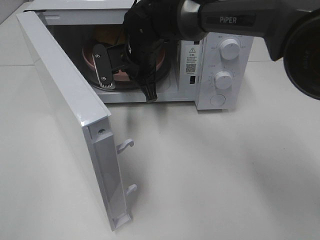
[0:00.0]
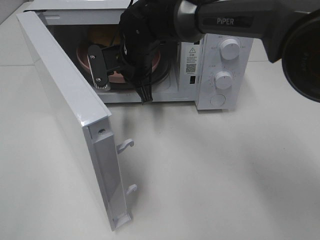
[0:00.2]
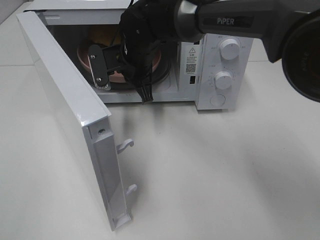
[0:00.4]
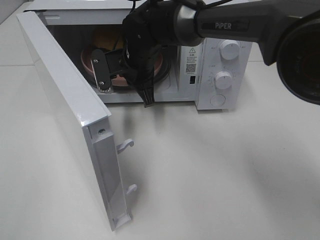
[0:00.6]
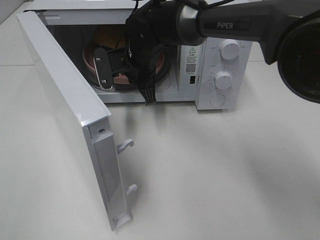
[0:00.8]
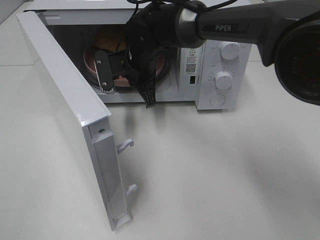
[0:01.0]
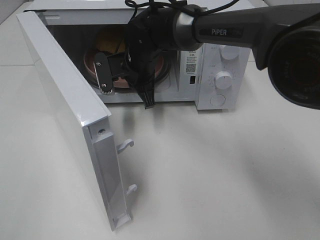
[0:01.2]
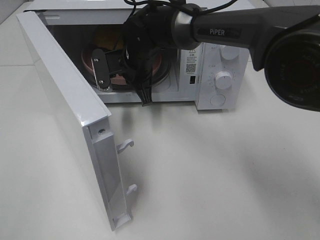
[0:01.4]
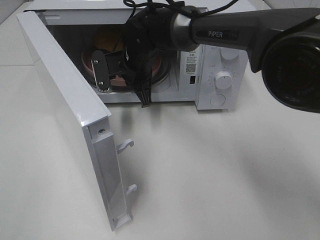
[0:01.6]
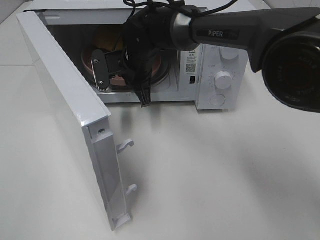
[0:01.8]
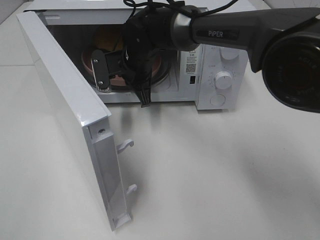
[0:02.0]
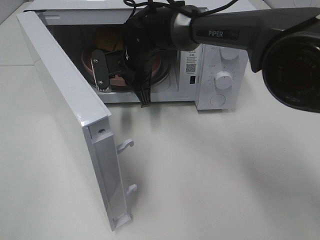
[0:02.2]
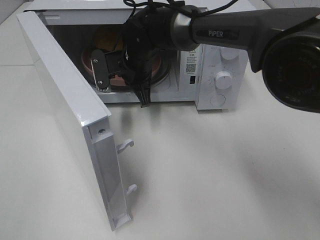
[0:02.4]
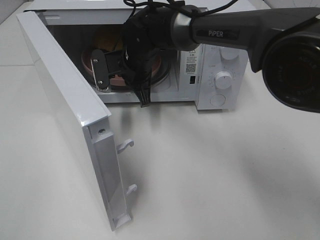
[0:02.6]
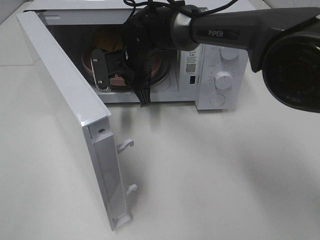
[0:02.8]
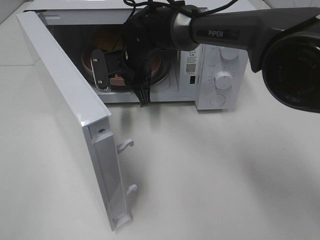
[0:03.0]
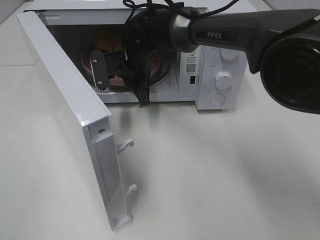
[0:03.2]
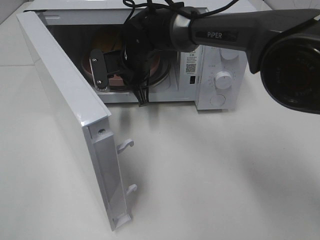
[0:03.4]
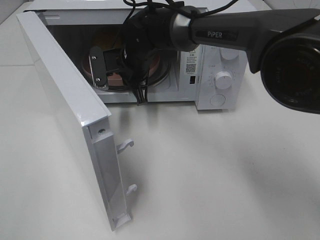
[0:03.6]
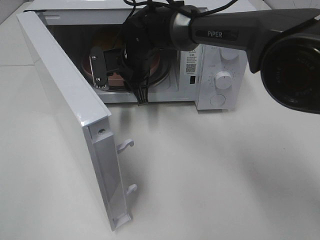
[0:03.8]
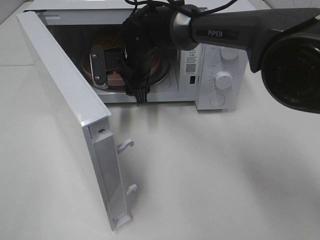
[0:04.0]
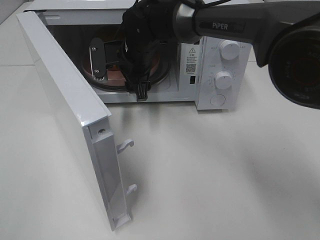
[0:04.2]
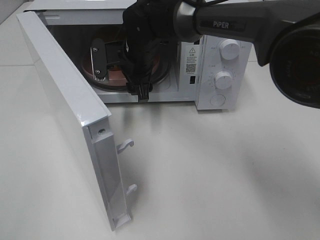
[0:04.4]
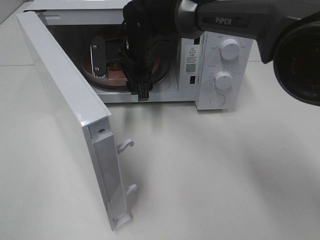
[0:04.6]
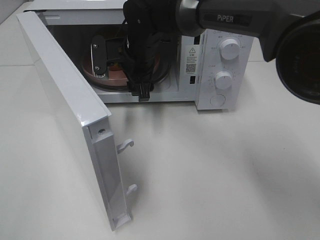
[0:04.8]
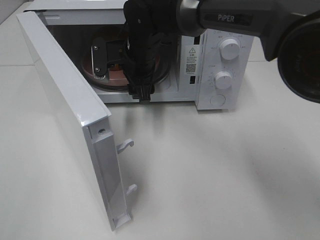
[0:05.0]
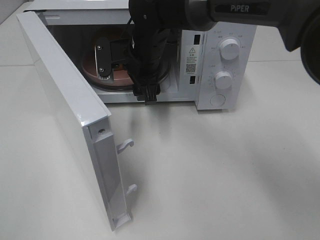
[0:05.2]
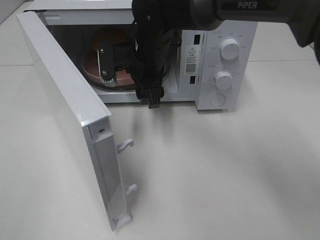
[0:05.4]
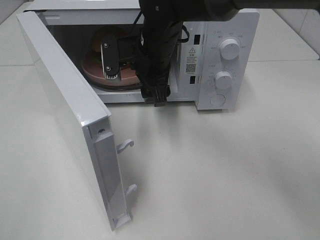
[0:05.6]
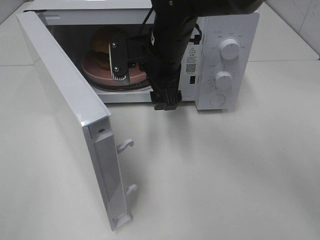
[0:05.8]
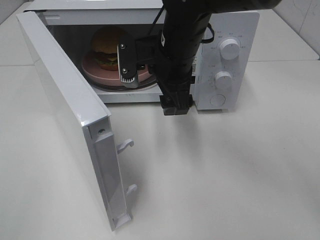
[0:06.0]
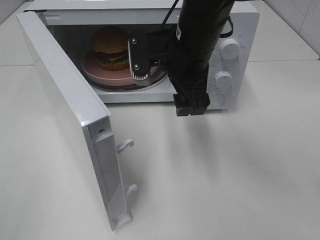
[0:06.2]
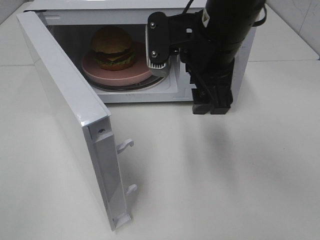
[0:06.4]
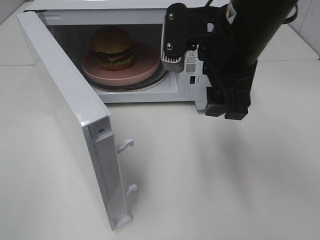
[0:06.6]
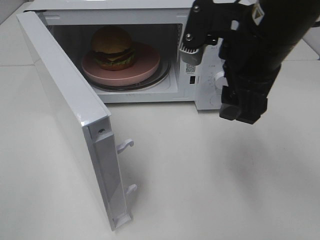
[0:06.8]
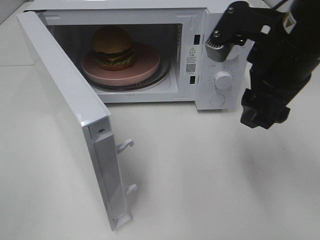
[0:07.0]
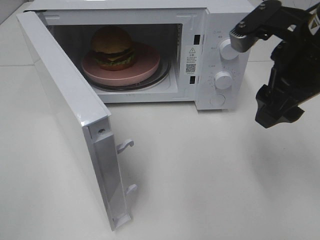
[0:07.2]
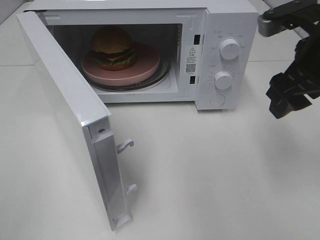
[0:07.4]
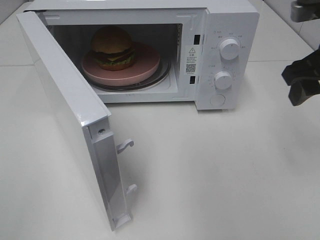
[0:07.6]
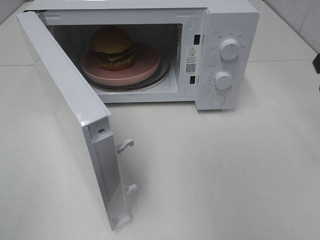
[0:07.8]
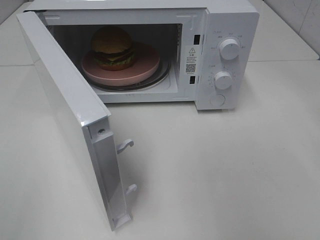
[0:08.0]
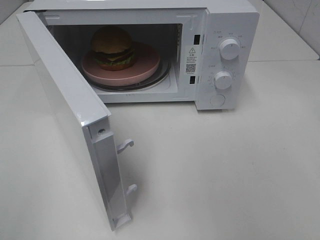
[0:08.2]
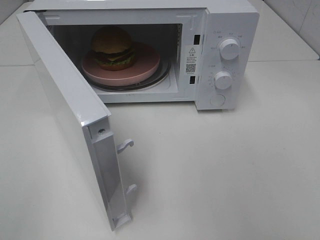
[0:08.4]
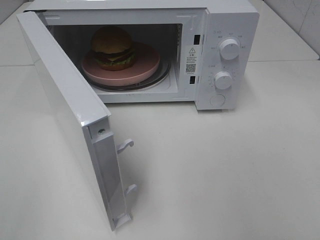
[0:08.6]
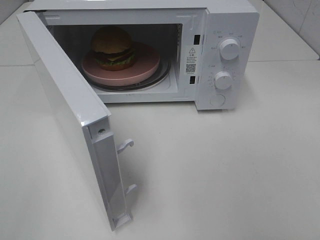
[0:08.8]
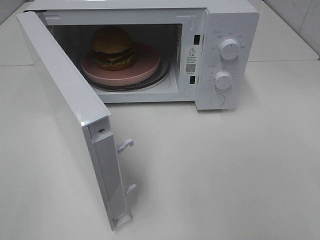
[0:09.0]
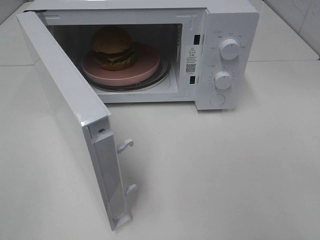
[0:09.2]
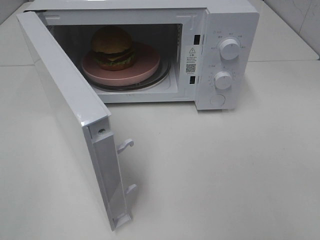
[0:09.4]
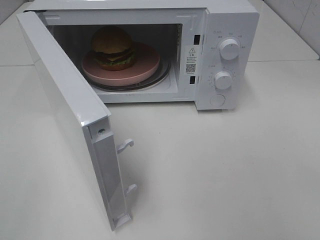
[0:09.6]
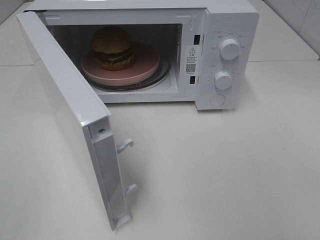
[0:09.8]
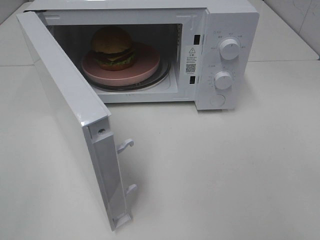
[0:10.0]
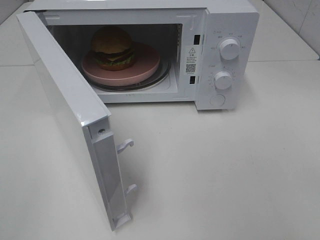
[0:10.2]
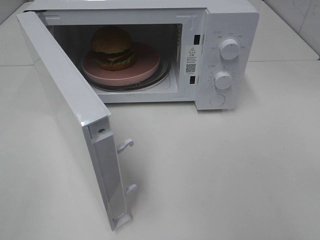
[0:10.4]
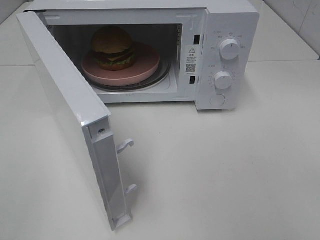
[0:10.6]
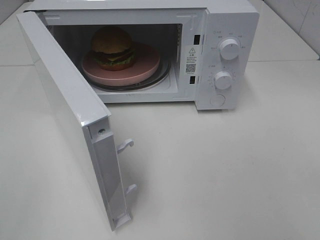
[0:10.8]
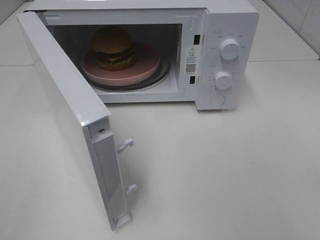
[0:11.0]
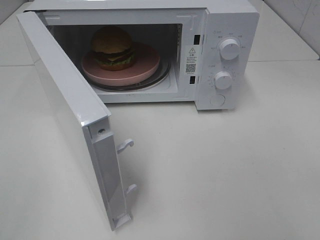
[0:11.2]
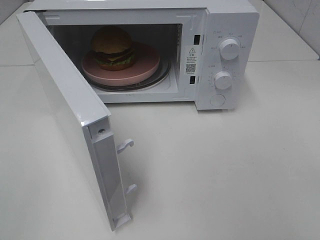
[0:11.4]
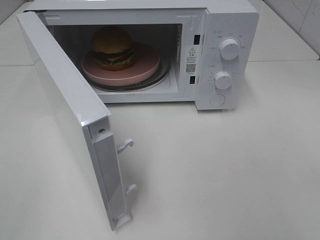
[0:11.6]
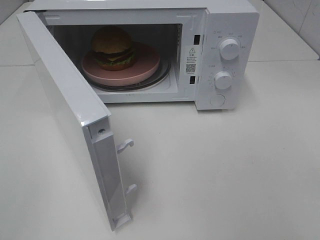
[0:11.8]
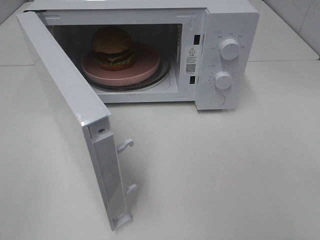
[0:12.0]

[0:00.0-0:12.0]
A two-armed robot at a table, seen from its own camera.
Task of the whole recording: Heat the burger.
Step, 0:00.0 to 0:03.8: Right hand: place the plate in the microwave.
0:00.0 to 0:01.6: The grippers move only a little.
0:01.6 to 0:03.0: The two grippers keep their place.
0:03.0 to 0:04.4: The right gripper opens its fingers.
0:04.4 to 0:06.0: The right gripper travels backward, to the right and upward by approximately 10 cm.
0:06.0 to 0:07.6: The right gripper travels to the right by some 20 cm.
0:07.6 to 0:09.0: The right gripper travels backward by roughly 20 cm.
0:10.4 to 0:12.0: Both grippers stay about where they are.

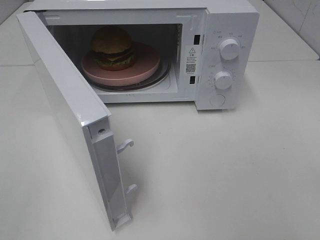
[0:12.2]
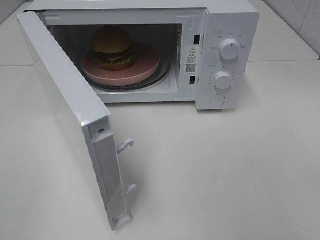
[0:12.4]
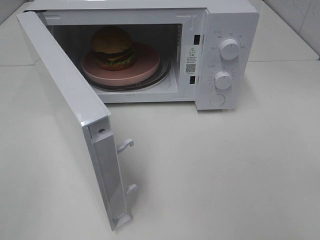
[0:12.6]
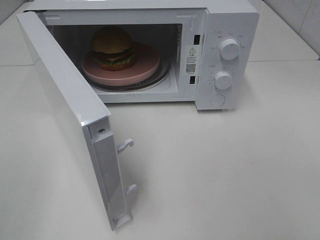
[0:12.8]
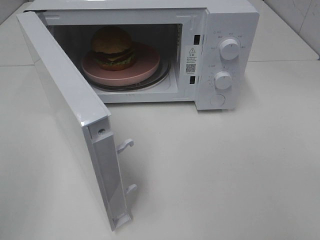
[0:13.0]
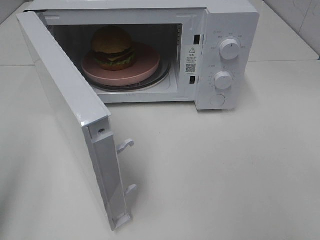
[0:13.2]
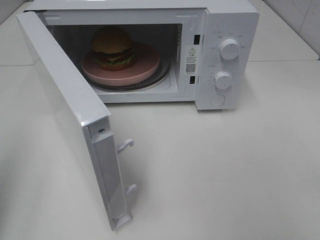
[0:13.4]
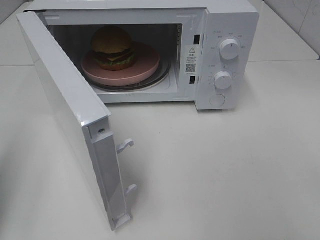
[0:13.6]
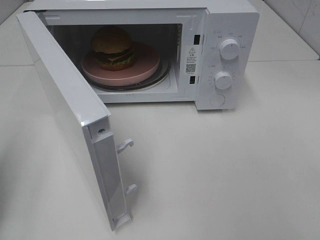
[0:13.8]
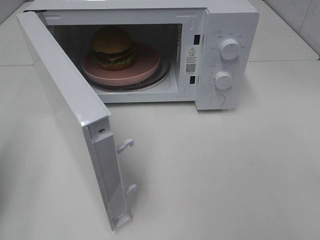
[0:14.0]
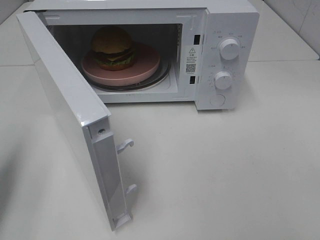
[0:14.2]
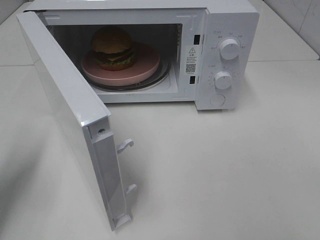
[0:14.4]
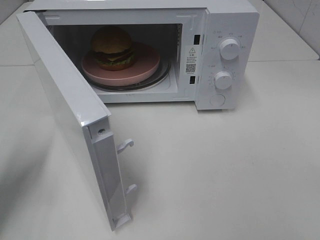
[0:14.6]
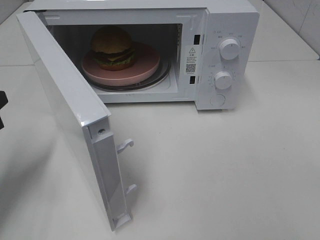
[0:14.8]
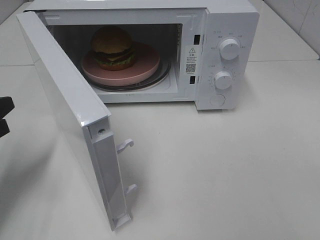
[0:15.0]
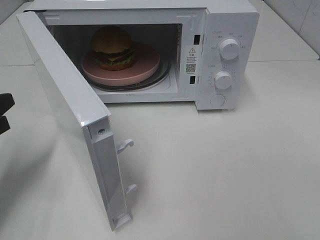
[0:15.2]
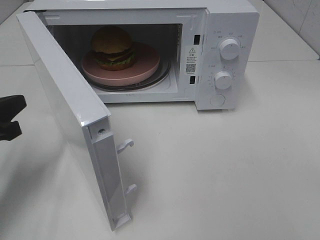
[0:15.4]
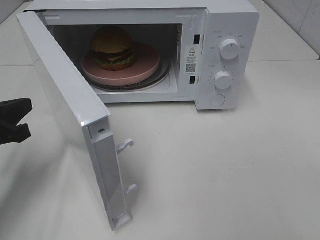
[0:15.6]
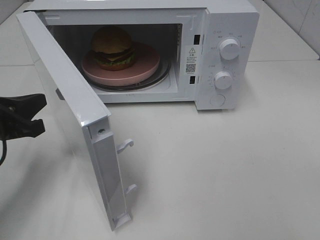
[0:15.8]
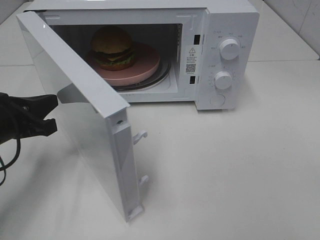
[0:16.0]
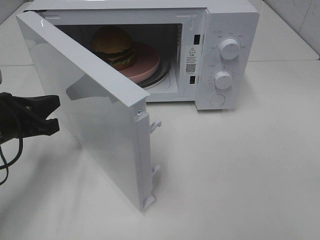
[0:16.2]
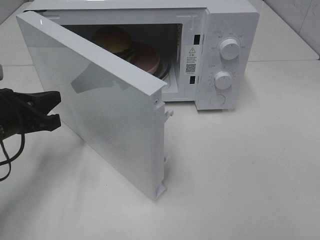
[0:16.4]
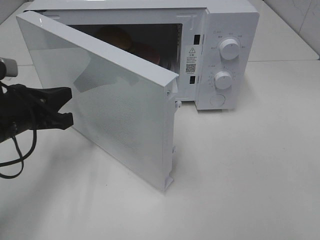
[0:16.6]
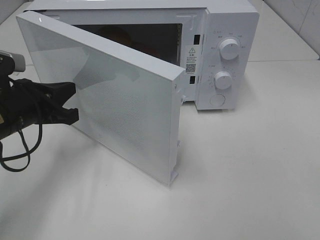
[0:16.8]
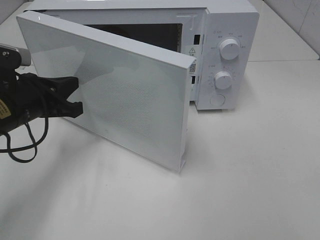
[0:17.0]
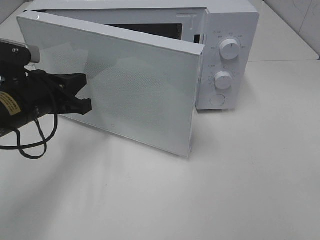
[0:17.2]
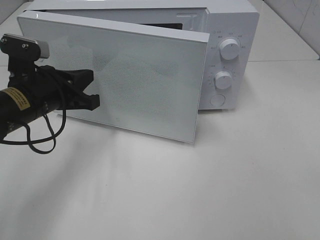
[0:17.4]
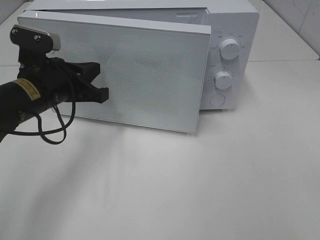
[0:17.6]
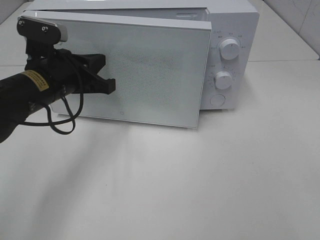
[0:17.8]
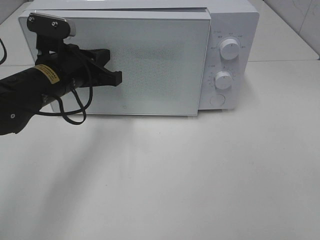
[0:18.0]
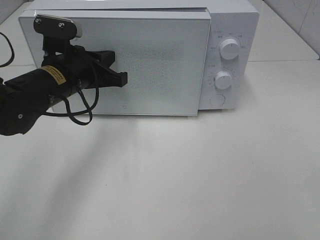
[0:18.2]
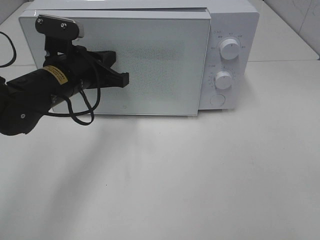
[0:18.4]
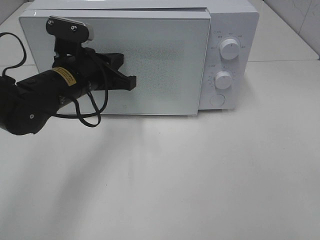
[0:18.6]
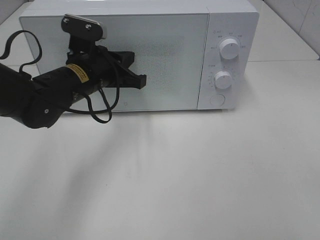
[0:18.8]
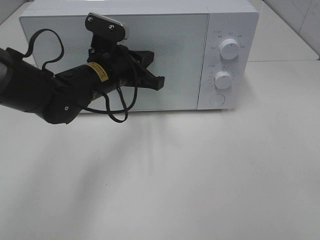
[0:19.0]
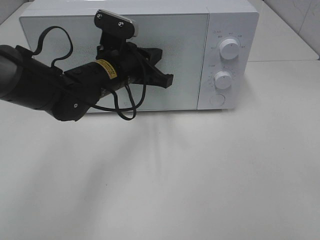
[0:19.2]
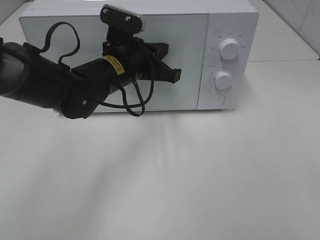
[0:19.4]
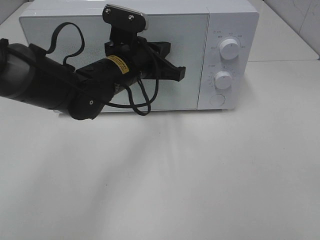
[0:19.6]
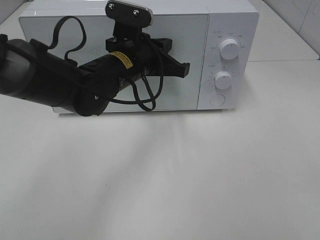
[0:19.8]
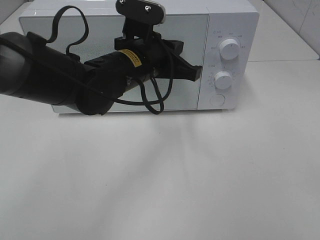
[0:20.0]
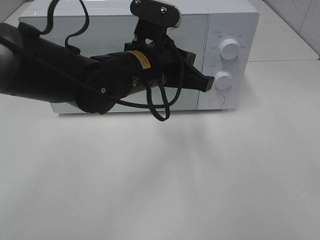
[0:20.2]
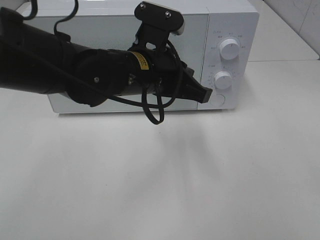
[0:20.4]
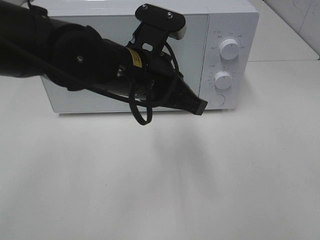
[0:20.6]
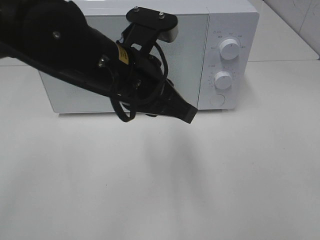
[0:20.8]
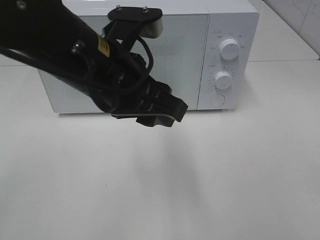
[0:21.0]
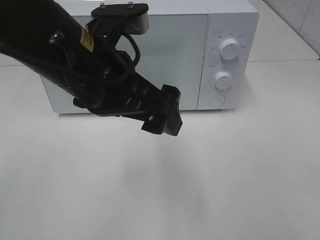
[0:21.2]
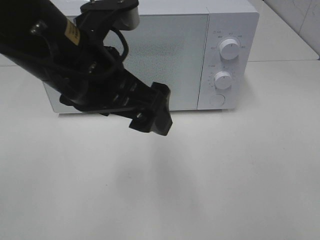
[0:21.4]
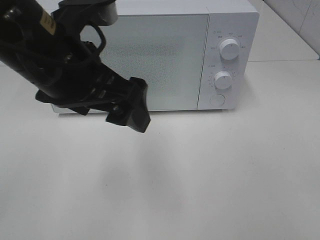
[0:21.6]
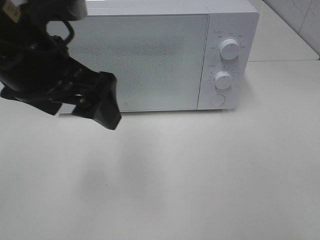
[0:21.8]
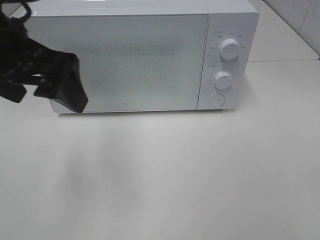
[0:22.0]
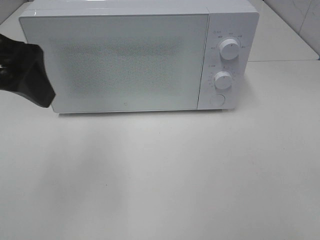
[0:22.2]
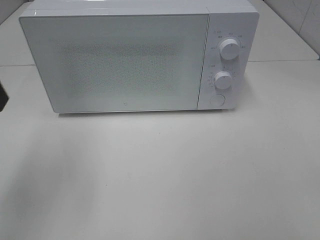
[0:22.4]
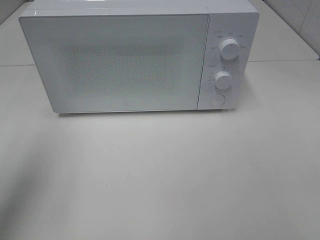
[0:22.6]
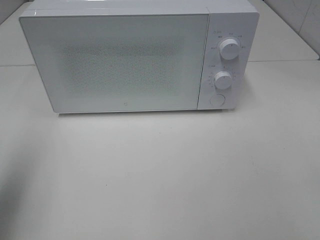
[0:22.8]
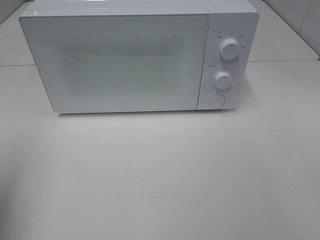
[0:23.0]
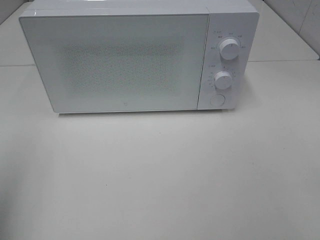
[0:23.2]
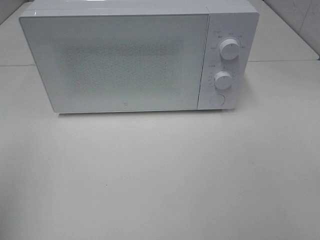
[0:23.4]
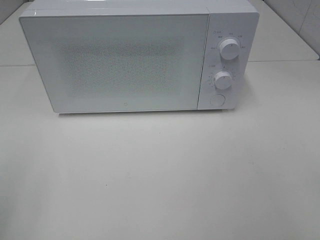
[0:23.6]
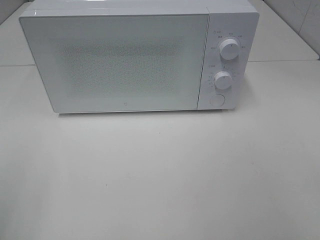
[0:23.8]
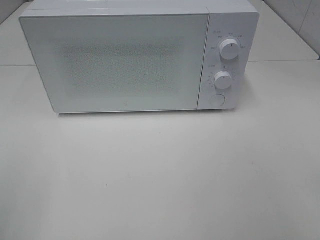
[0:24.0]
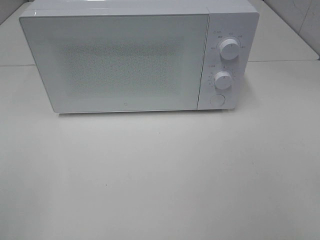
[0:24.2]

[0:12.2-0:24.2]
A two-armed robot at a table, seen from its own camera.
Task of the whole recording: Heat the burger.
Step, 0:12.2 to 0:19.8: Left hand: close the microwave door.
0:12.2 to 0:13.8: The left gripper heads forward, covering about 15 cm, and closes up.
0:13.8 to 0:15.2: The left gripper goes about 10 cm downward and forward.
0:15.2 to 0:16.6: The left gripper moves to the right, about 10 cm.
0:16.6 to 0:18.2: The left gripper is displaced to the right and forward by about 10 cm.
0:18.2 to 0:19.8: The left gripper travels to the right by approximately 10 cm.
0:19.8 to 0:21.2: The left gripper goes approximately 15 cm backward and upward, and opens.
0:21.2 to 0:22.6: The left gripper moves to the left, about 20 cm.
0:22.6 to 0:24.2: The left gripper heads backward, covering about 15 cm.
